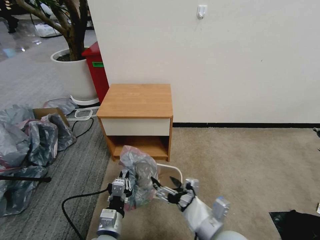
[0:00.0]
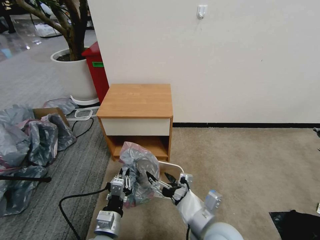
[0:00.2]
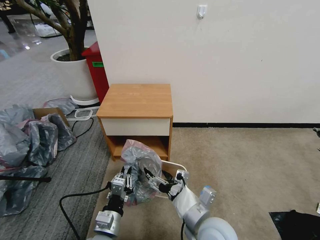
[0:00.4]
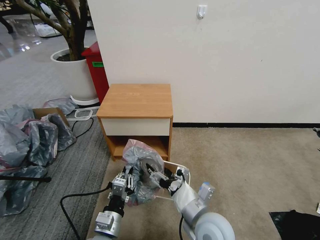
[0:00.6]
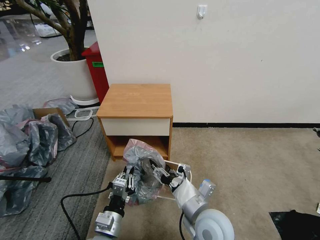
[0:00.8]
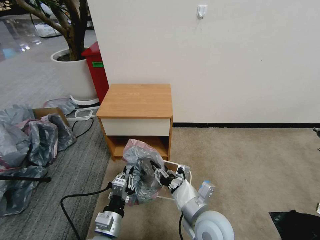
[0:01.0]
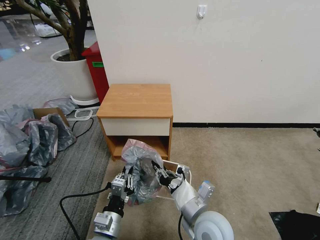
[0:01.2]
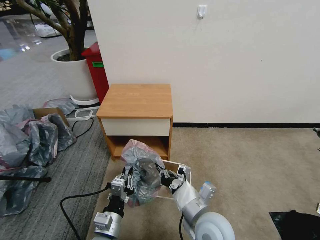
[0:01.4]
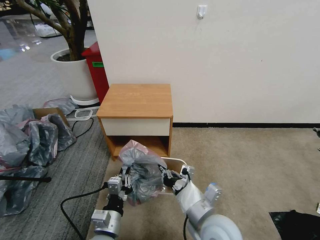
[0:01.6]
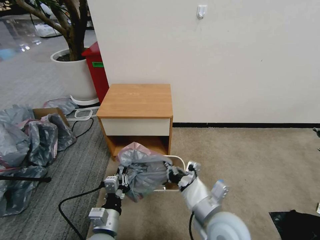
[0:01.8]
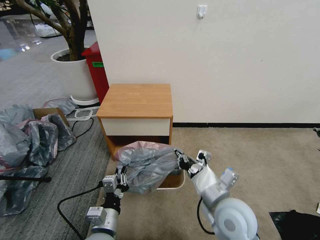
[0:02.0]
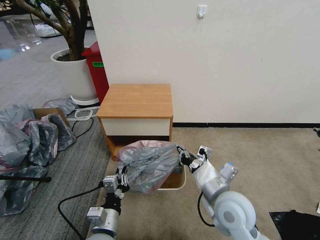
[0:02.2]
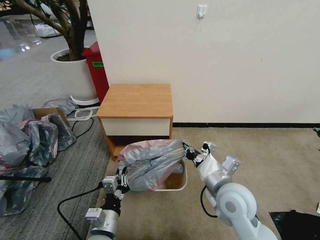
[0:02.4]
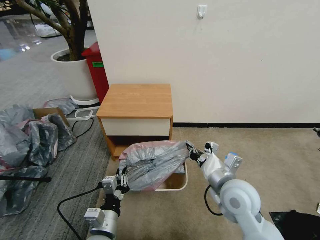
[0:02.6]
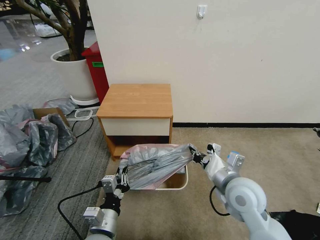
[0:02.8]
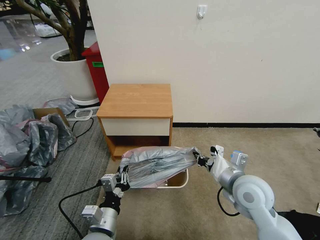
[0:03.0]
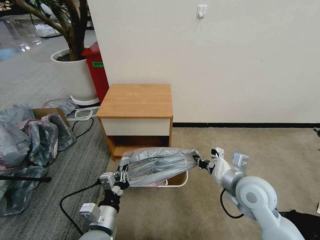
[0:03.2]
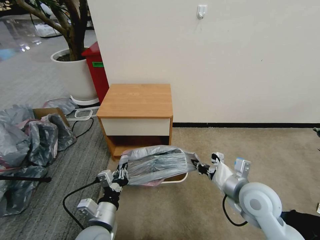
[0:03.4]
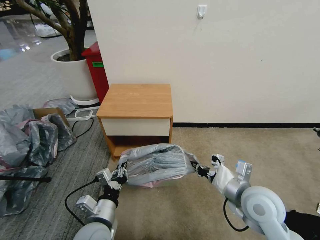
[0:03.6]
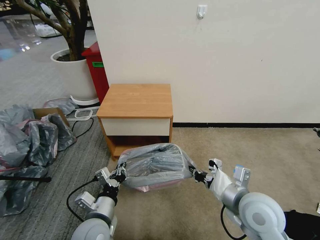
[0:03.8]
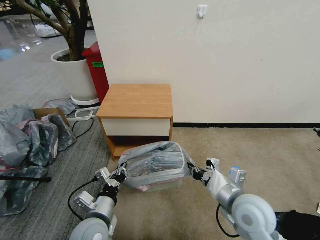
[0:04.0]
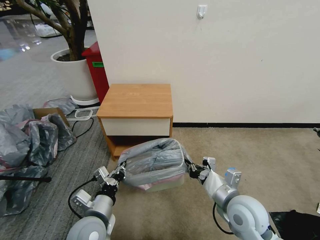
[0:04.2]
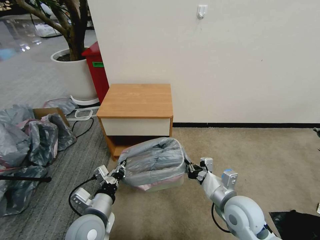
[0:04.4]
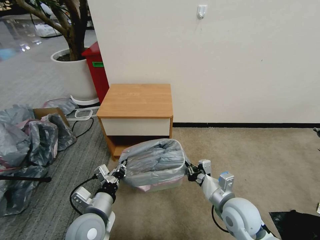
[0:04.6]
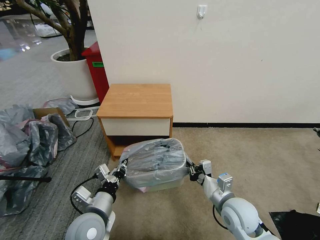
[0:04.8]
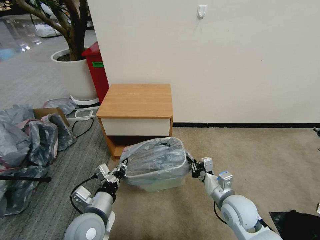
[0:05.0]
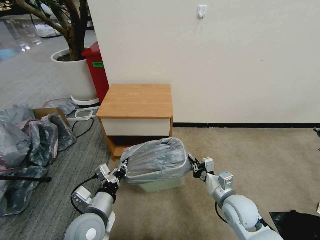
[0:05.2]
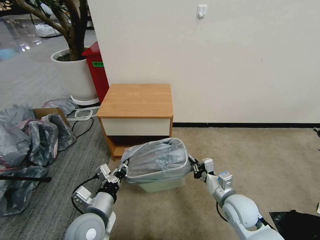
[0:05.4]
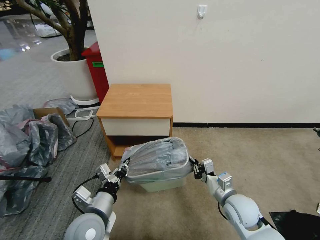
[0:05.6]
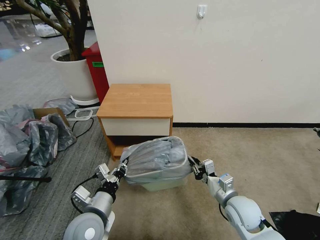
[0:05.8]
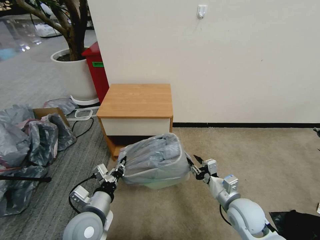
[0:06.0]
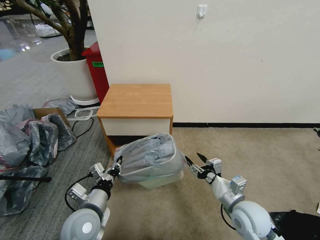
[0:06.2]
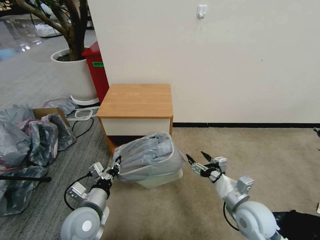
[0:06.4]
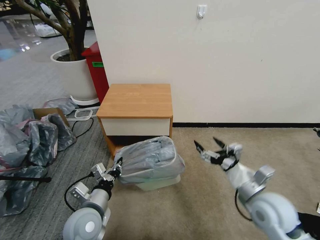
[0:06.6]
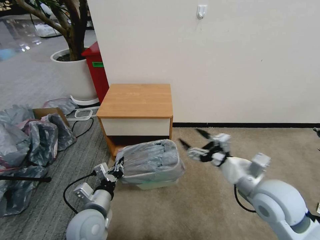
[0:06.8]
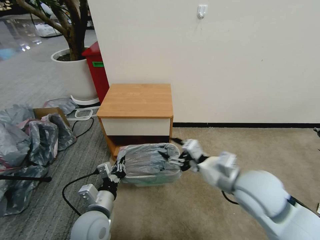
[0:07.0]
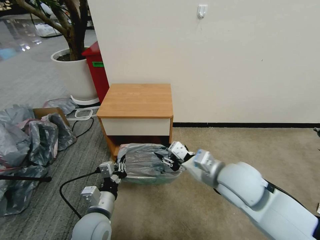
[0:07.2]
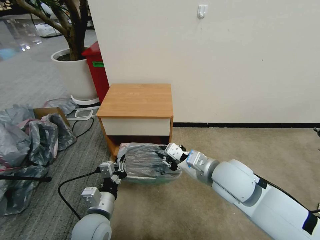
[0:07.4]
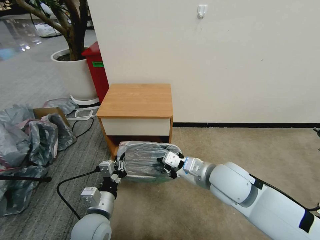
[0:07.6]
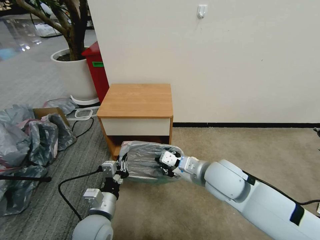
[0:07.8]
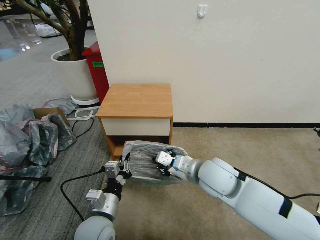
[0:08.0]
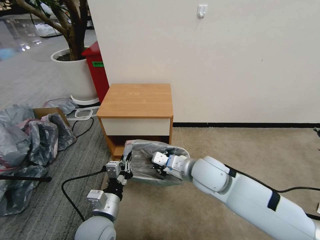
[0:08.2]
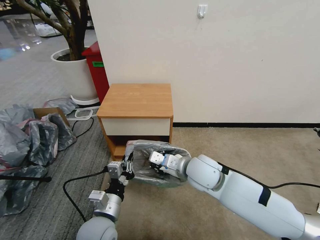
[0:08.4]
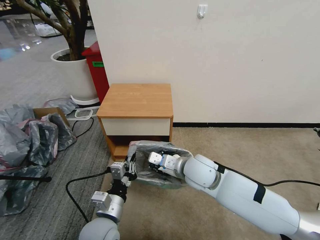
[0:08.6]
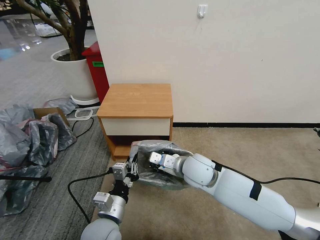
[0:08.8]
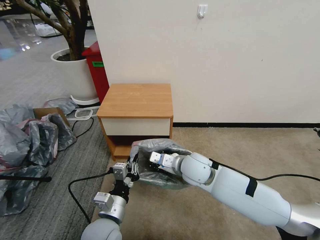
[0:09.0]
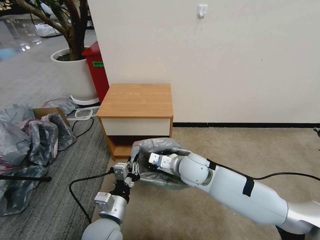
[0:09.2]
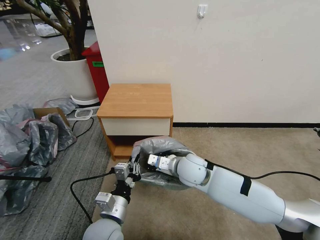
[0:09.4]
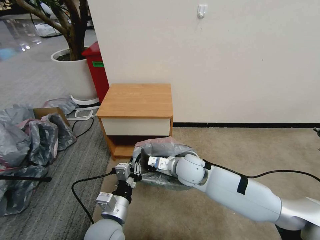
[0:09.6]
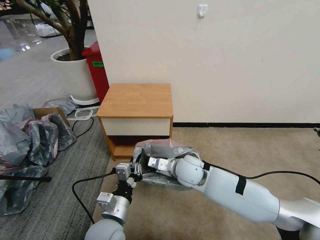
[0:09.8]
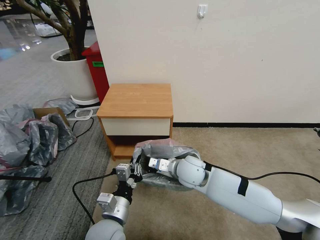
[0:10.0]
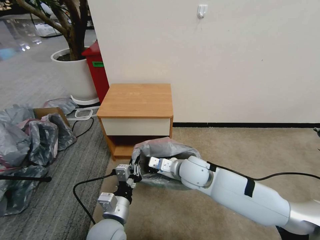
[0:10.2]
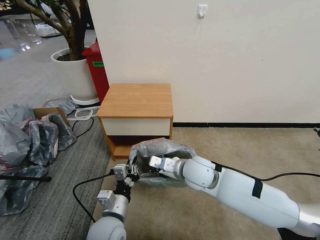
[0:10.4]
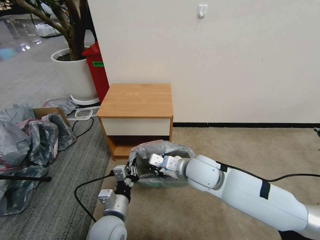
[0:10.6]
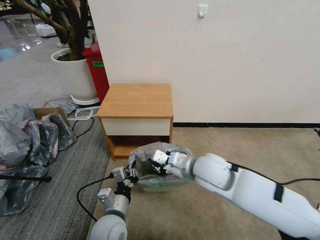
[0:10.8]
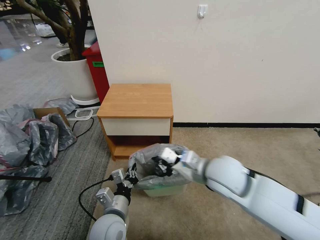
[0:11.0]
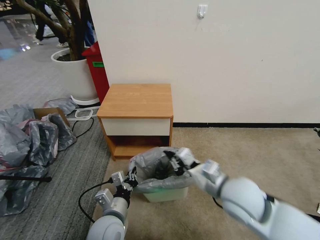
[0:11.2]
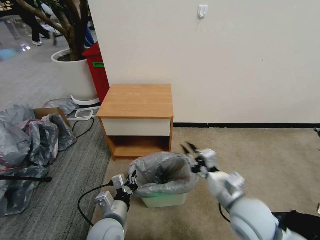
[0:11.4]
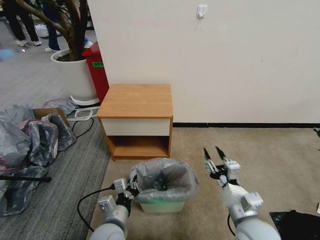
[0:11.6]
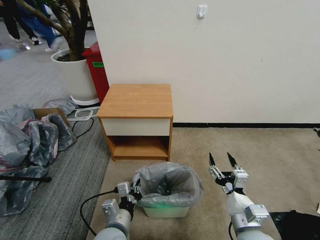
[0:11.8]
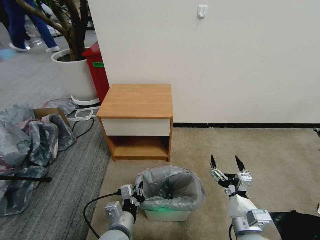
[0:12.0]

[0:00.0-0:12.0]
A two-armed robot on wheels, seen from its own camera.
Task of the whole recording: Pick up the garbage bag from the table and place it over the trash can.
0:00.0 to 0:01.6: The right gripper closes.
0:01.6 to 0:03.0: The right gripper is displaced to the right and forward by roughly 15 cm.
0:03.0 to 0:04.4: The left gripper ends up approximately 5 cm from where it was. Meanwhile the right gripper heads downward, covering roughly 5 cm.
0:04.4 to 0:06.0: The right gripper goes roughly 5 cm downward, and opens.
0:06.0 to 0:07.6: The right gripper is displaced upward and to the left by approximately 15 cm, and closes its fingers.
0:07.6 to 0:09.0: The right gripper shifts roughly 10 cm forward, downward and to the left.
0:09.0 to 0:10.4: The grippers make only small movements.
0:10.4 to 0:12.0: The right gripper goes about 25 cm backward and to the right, and opens up.

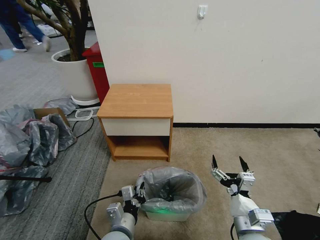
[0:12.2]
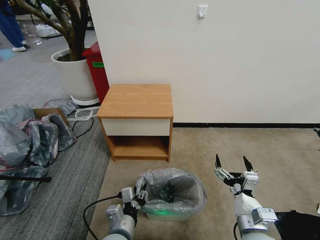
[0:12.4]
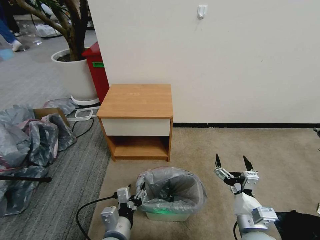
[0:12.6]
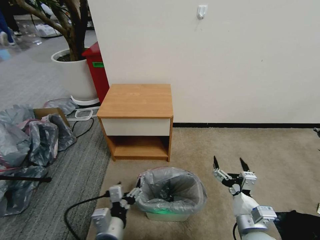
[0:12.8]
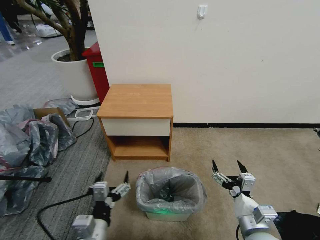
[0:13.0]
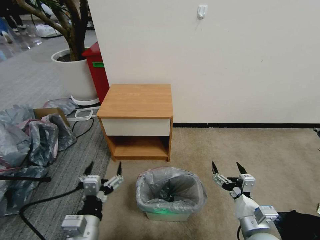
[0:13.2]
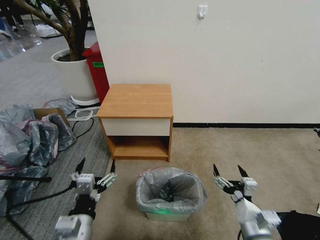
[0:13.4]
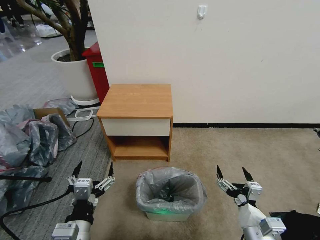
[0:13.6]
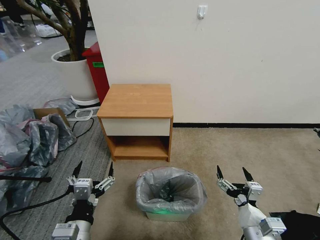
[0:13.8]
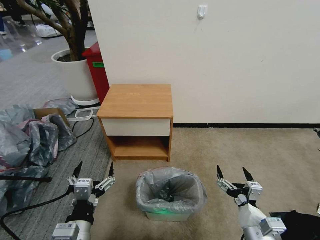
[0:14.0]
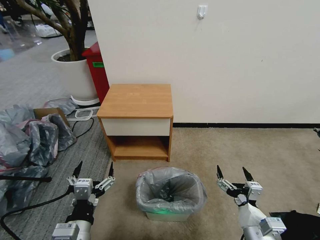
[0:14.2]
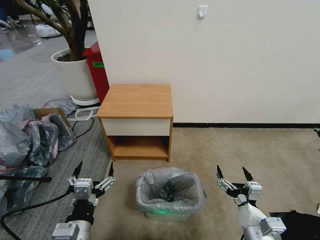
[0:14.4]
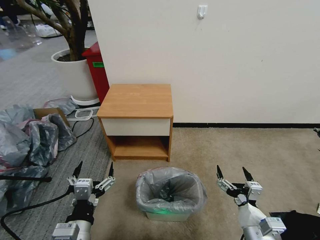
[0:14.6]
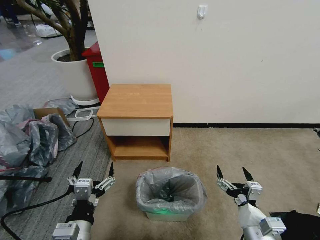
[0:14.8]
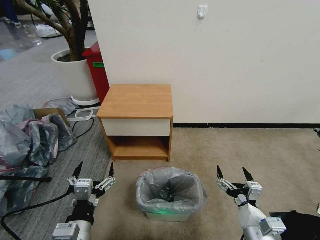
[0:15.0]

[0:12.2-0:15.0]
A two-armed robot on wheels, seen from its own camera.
Task of the whole recording: Pick up the garbage bag from the table and place it over the trash can.
0:12.2 to 0:13.6: The left gripper travels upward, to the left and backward by approximately 15 cm, and opens up.
0:13.6 to 0:15.0: Both grippers stay put.
